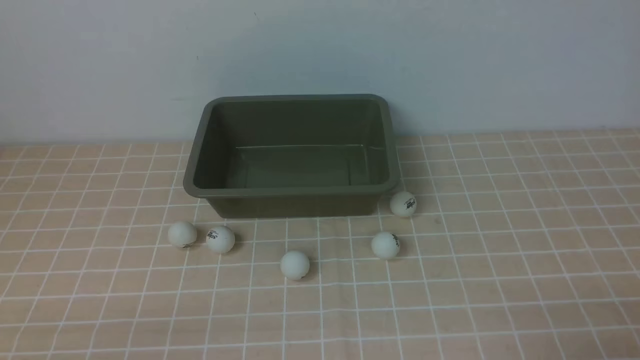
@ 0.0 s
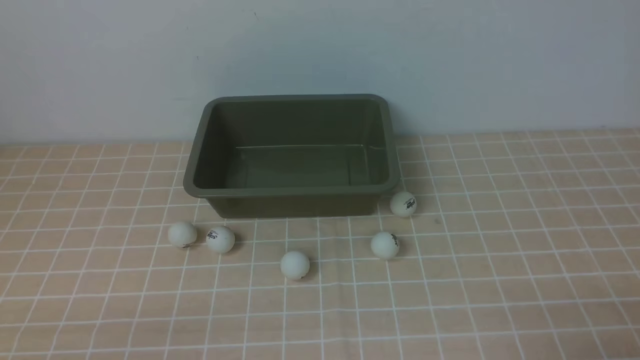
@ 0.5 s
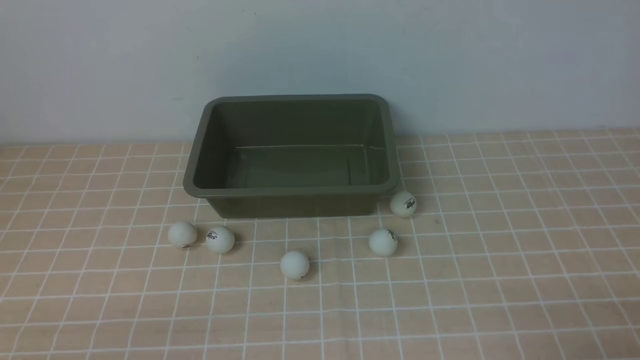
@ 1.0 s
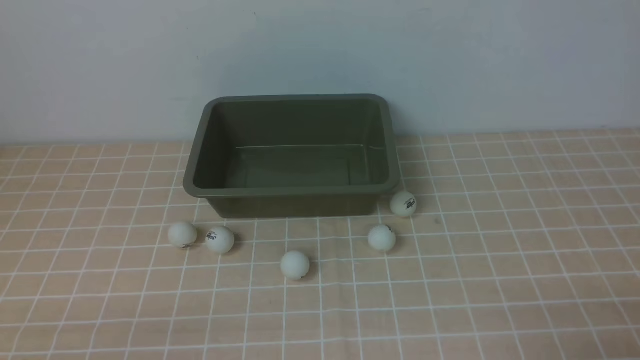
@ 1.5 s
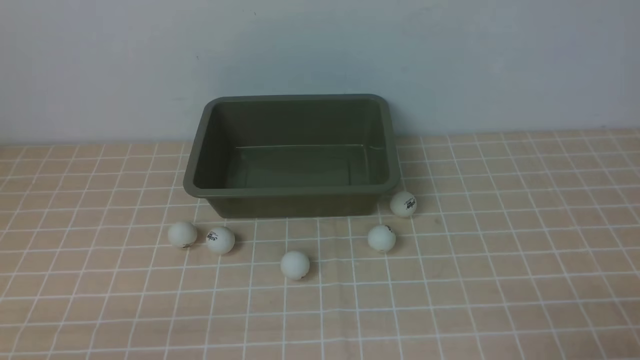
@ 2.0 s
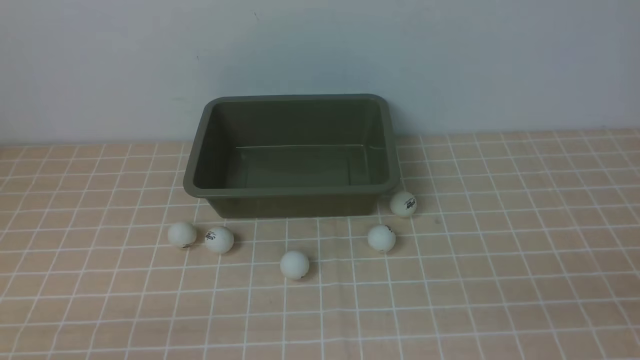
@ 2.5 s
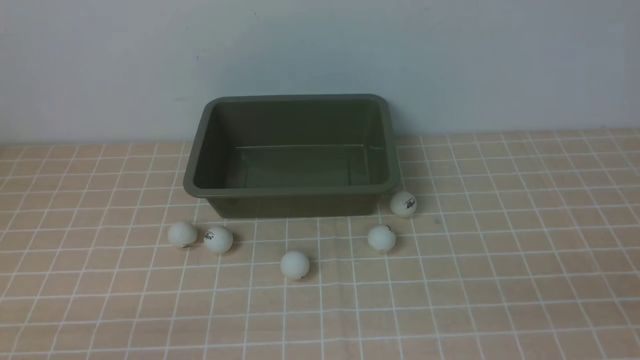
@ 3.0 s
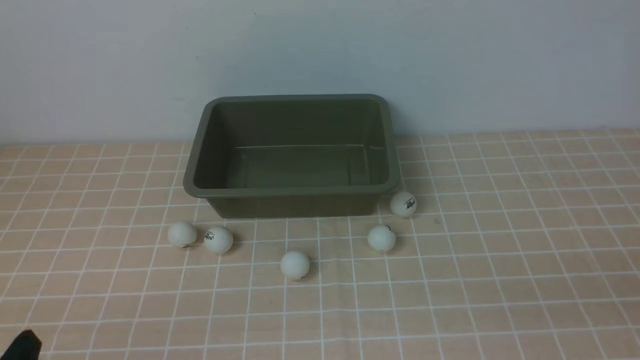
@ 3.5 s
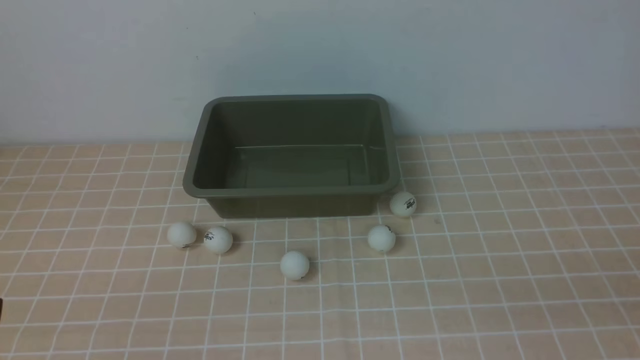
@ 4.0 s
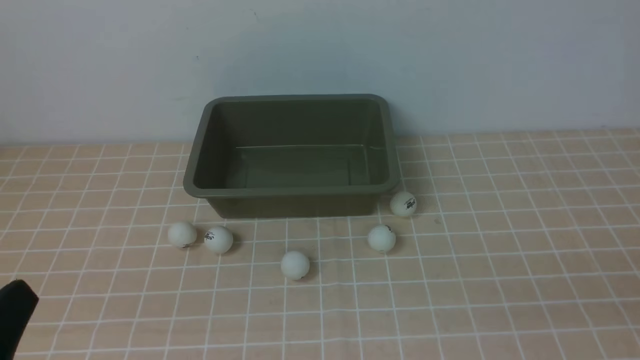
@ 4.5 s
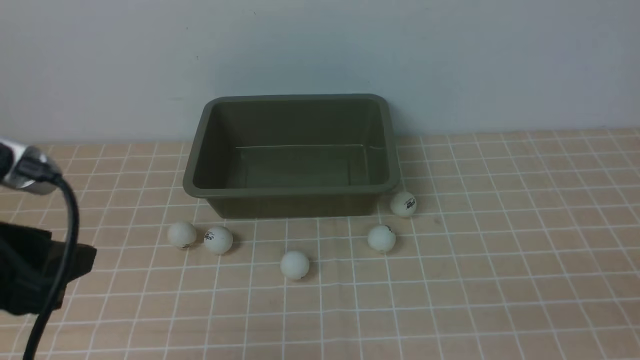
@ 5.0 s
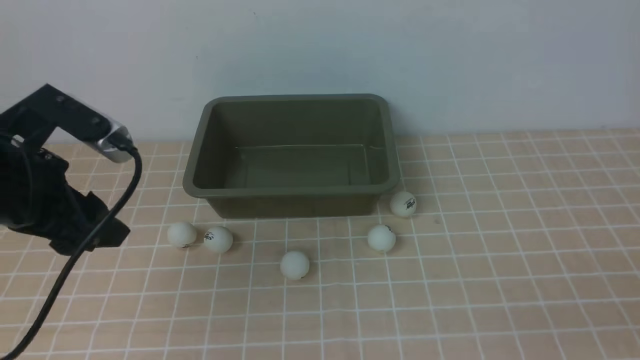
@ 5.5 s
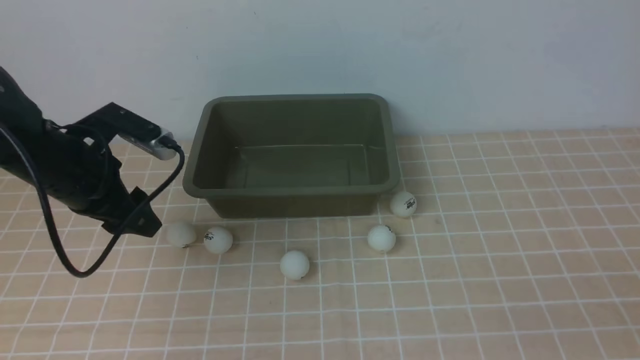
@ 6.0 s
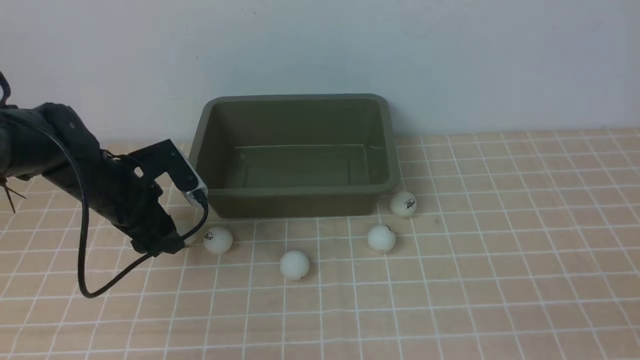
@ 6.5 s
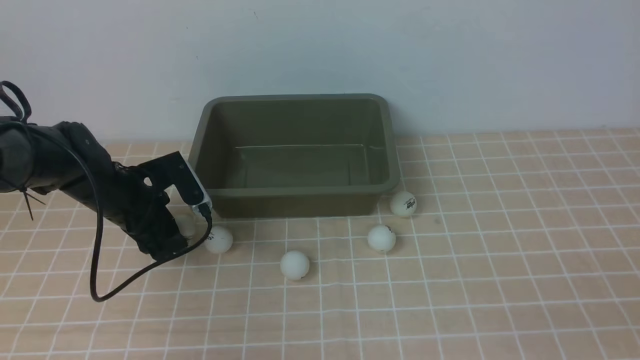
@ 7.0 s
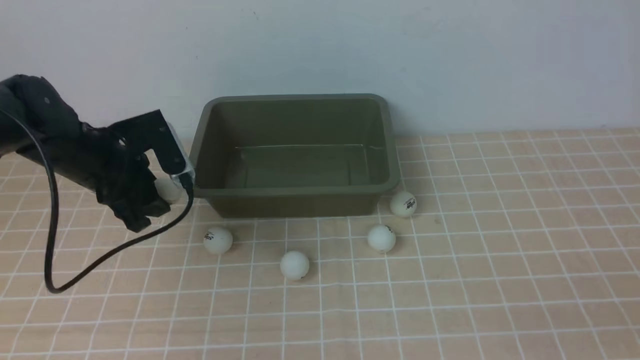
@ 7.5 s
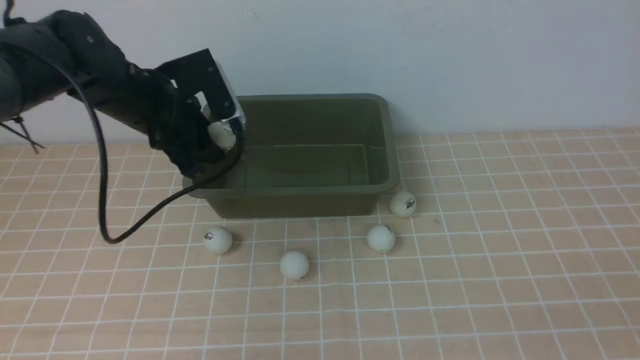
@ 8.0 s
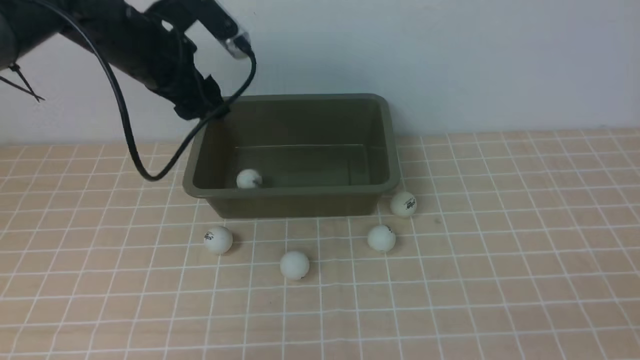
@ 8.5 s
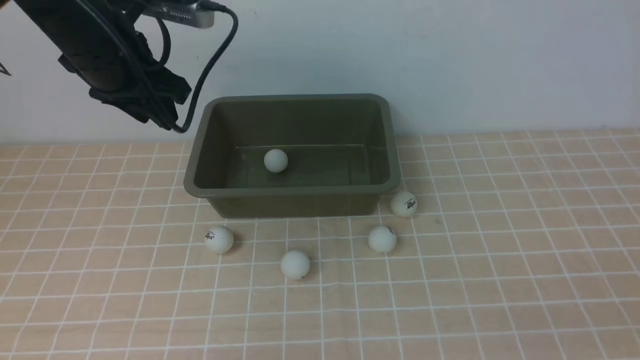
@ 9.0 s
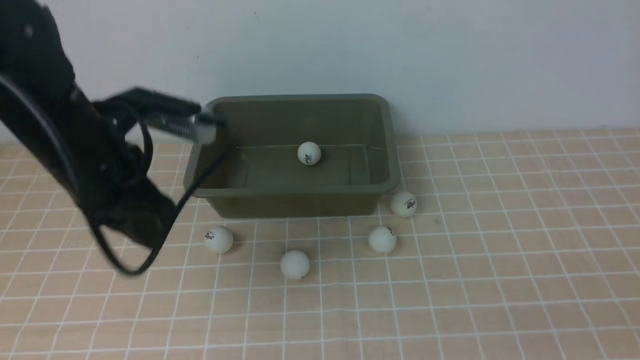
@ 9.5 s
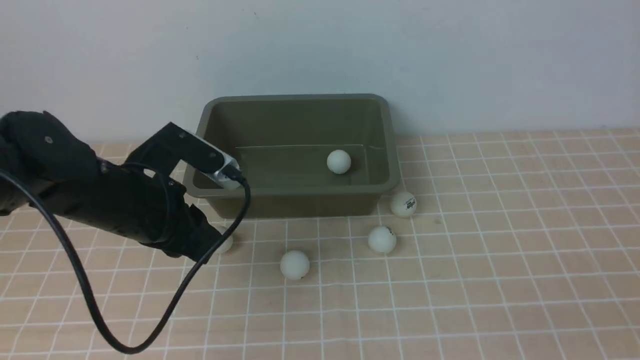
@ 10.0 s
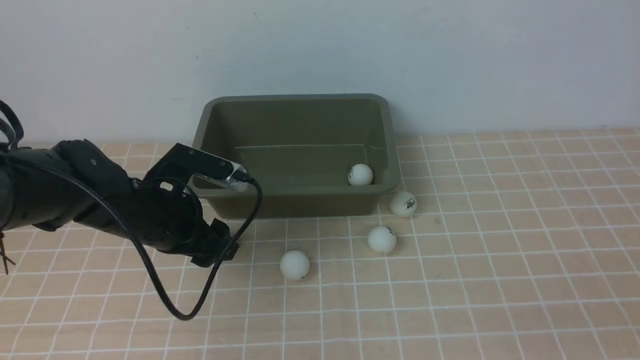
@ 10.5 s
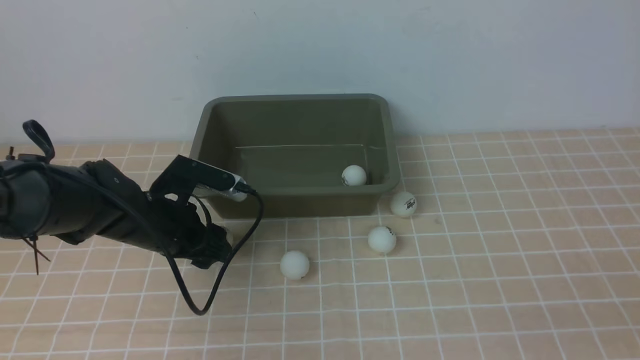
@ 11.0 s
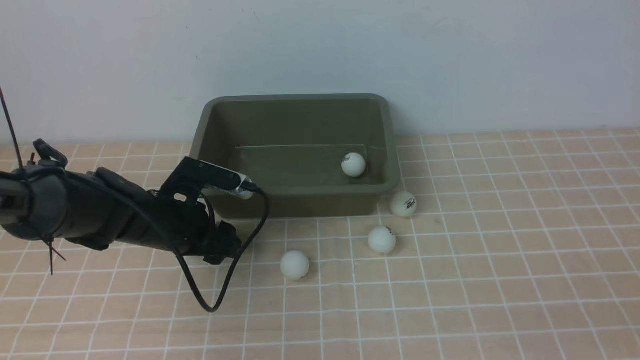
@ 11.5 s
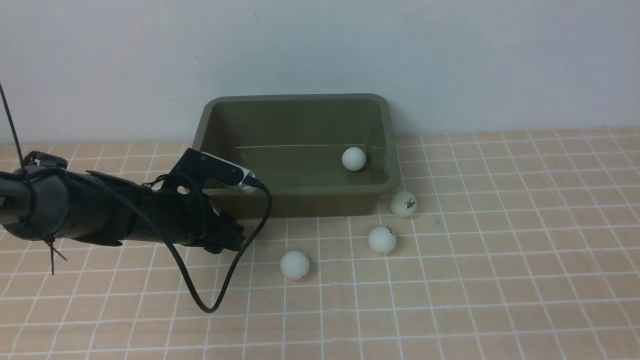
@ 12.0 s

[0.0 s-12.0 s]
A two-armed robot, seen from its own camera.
Step, 0.0 to 7.0 s: use the left arm to clamp the table tennis ball closest to it.
Step, 7.5 to 8.5 s: use the left arm to put the table tennis ball into the box.
4.0 to 6.0 s: The left gripper heads forward, covering some 30 cm.
6.0 to 8.0 s: The left gripper is displaced forward and to the right by roughly 10 cm, and goes downward and returns, about 10 cm each way.
8.0 to 10.0 s: The left gripper is displaced backward by about 10 cm, and closes, then reopens.
10.0 to 12.0 s: The left gripper travels downward and forward by some 10 cm.

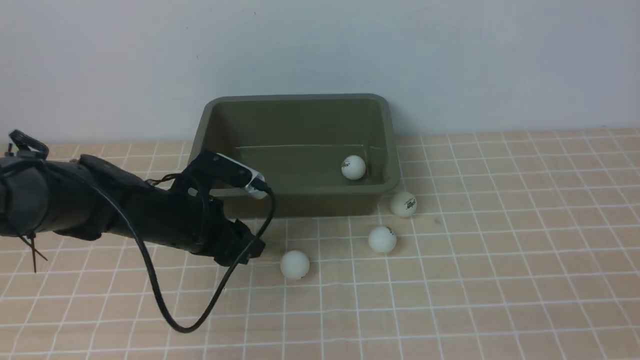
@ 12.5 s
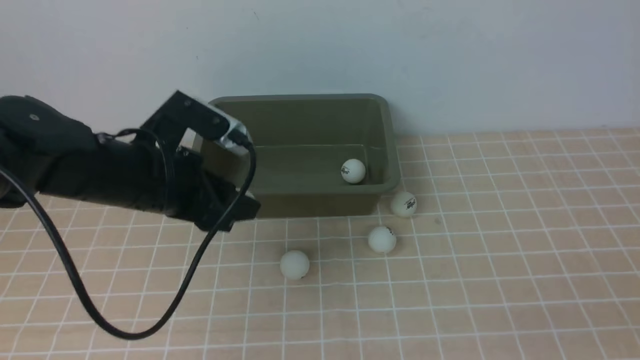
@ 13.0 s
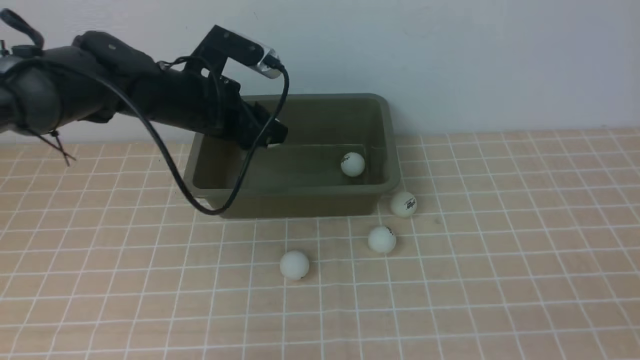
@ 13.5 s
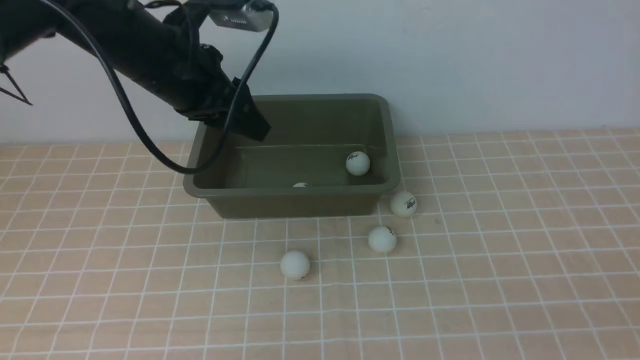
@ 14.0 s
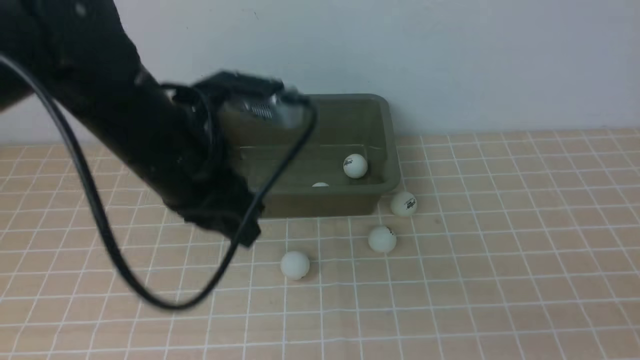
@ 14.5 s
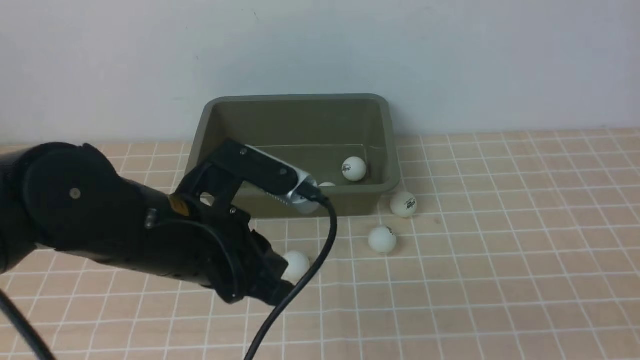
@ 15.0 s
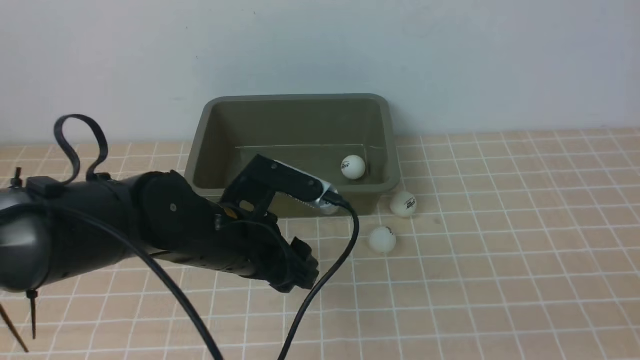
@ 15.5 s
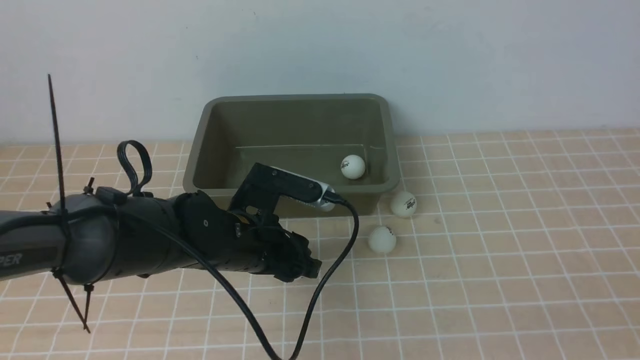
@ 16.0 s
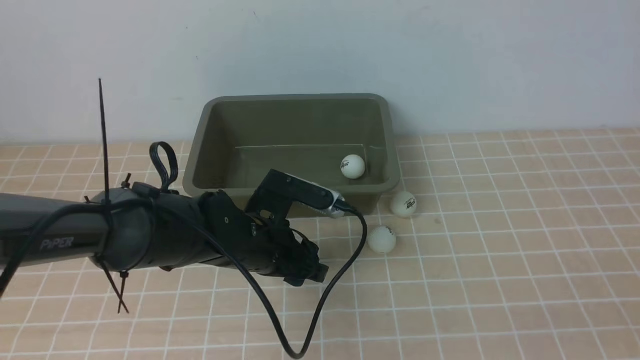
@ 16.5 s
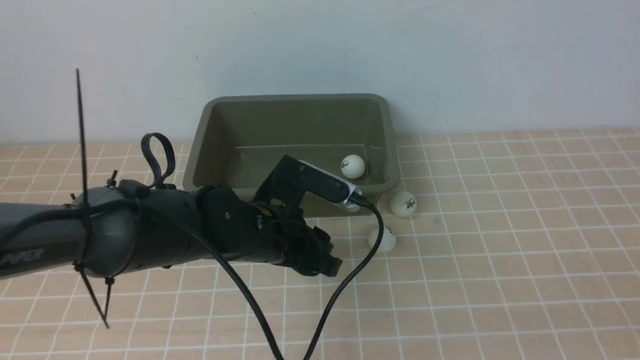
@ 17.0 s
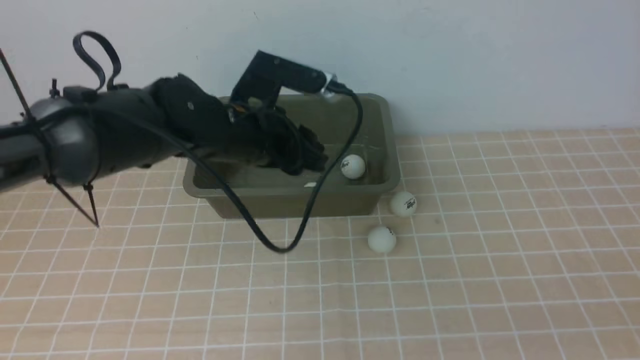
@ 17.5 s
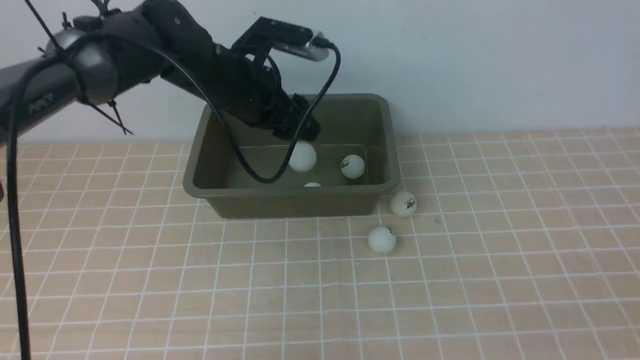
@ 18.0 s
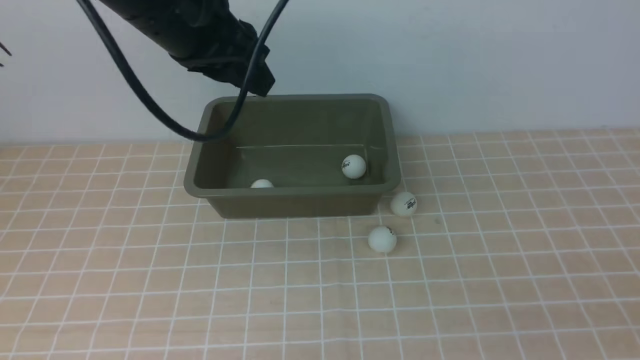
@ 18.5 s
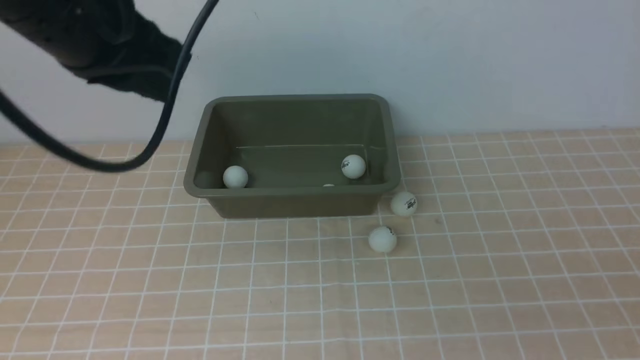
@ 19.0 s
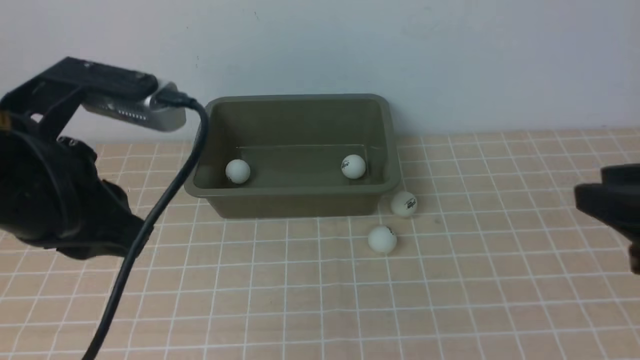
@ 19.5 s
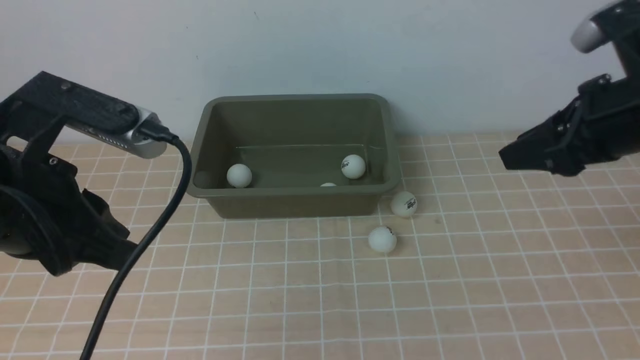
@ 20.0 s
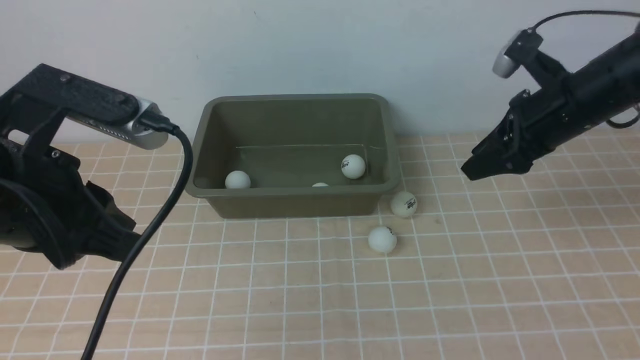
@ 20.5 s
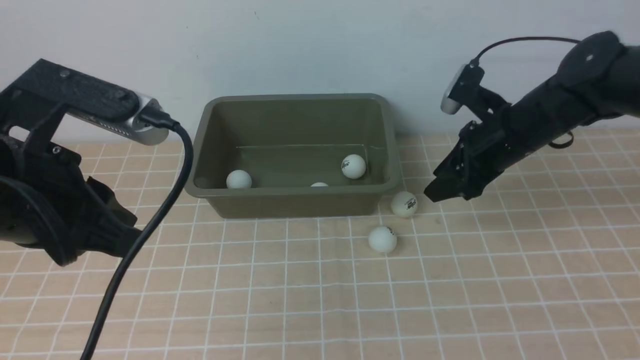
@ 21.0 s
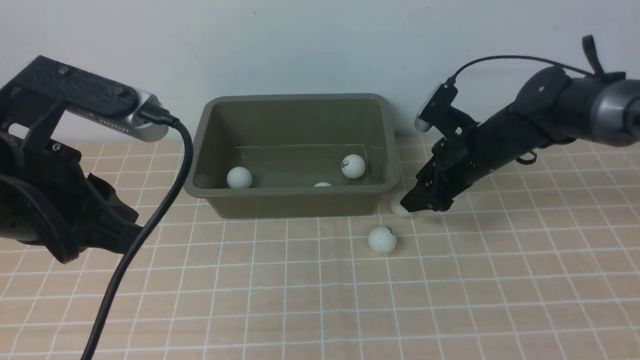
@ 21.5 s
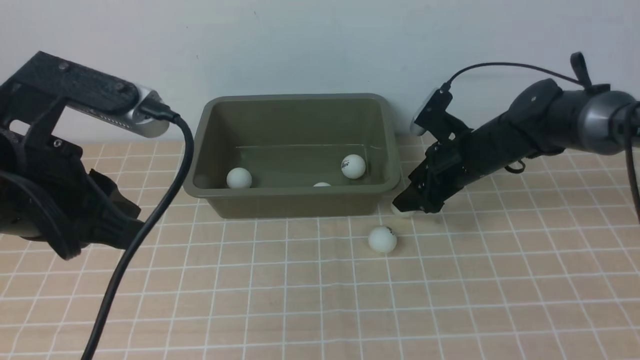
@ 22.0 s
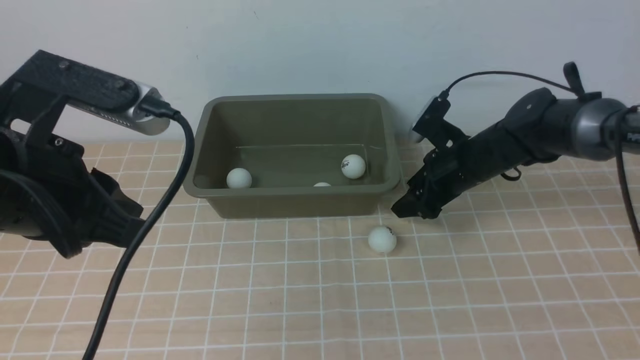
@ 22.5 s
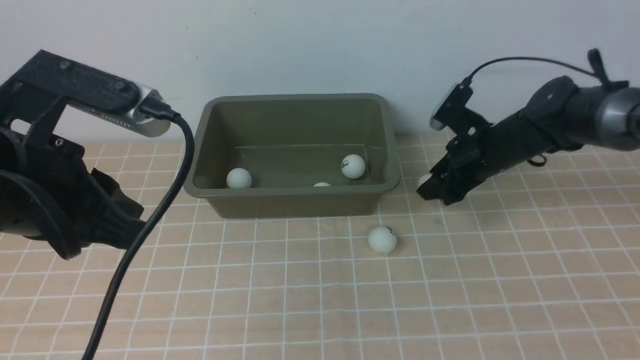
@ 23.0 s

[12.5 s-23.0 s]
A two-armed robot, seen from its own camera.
Step, 13.0 to 13.5 s: use the left arm to put the table tennis ball into the box.
Step, 14.0 to 17.0 s: use the left arm to clamp the table tennis ball closest to it.
Step, 17.5 to 18.0 s: use the left arm to put the table tennis ball into the box.
12.5 to 14.5 s: The left gripper travels upward by approximately 15 cm, and closes.
14.5 to 16.5 s: The left gripper is displaced downward by roughly 20 cm, and opens up.
16.5 to 19.0 s: The left gripper moves upward, some 25 cm, and closes its fingers.
19.0 to 21.0 s: The left gripper moves backward and downward, roughly 10 cm; the right gripper goes roughly 35 cm forward, and opens.
21.0 to 23.0 s: The right gripper ends up approximately 5 cm from where it was, and opens, then closes once more.
